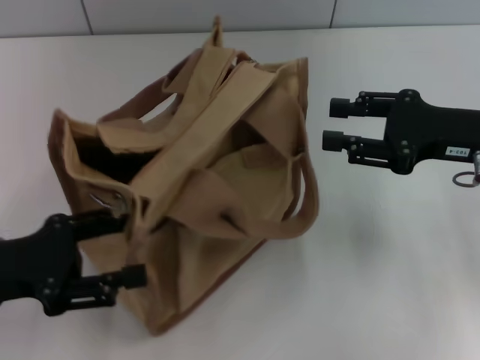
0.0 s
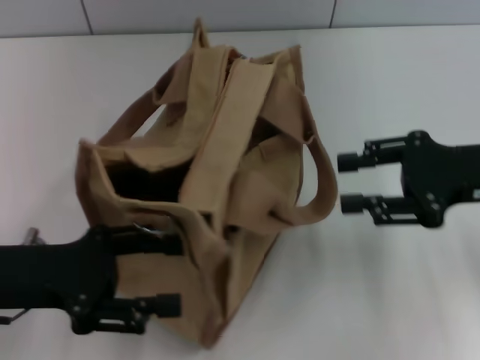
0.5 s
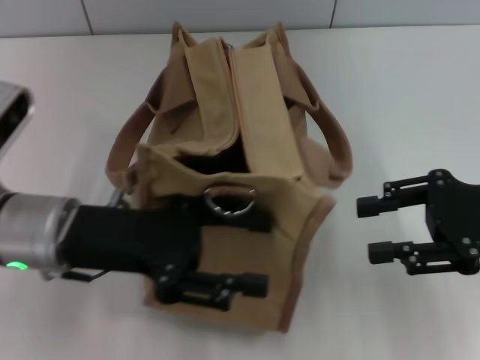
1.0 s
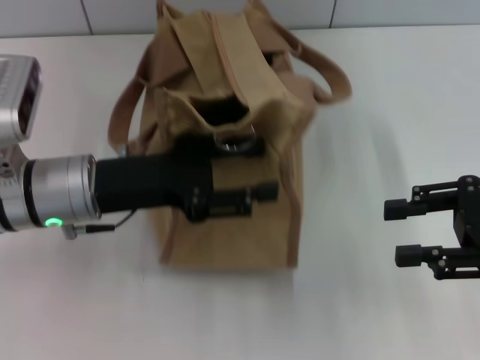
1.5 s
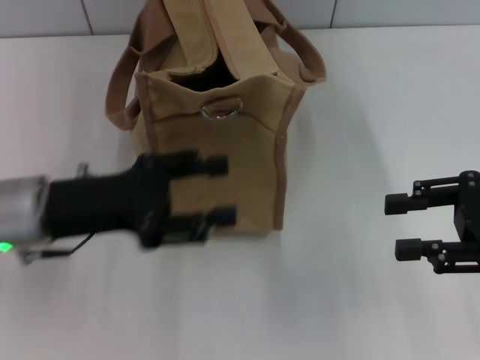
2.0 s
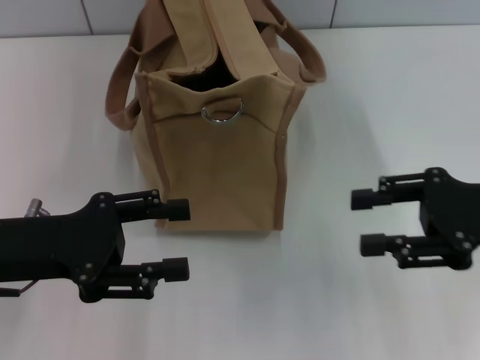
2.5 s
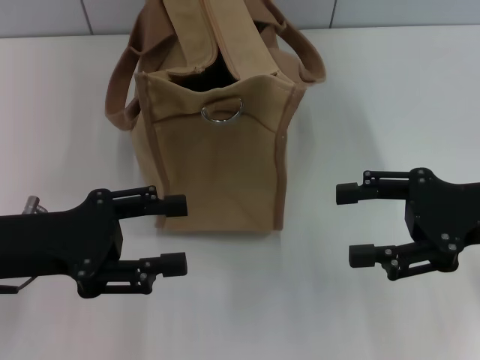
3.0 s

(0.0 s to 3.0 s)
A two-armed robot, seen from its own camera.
Step, 0.0 s - 2.0 s: Grab the bag with your left hand.
0.0 s - 1.5 s: The right gripper travels backward by roughly 5 cm, while the left gripper is displaced to the right and forward by some 15 cm.
1.5 s - 3.0 s: The left gripper travels to the left and backward by roughly 10 cm.

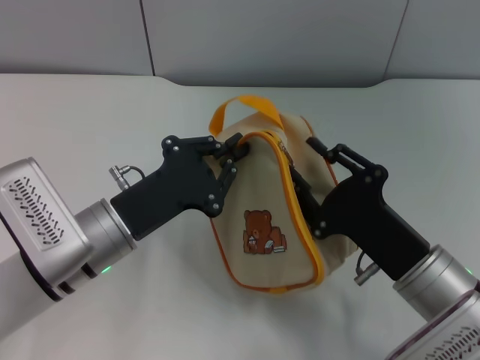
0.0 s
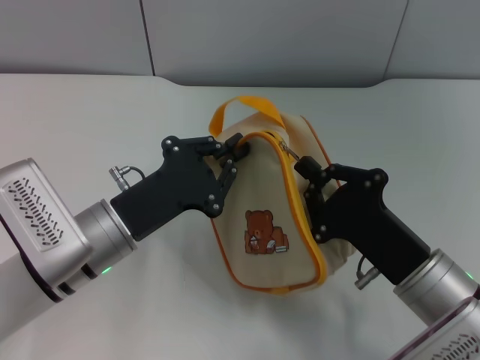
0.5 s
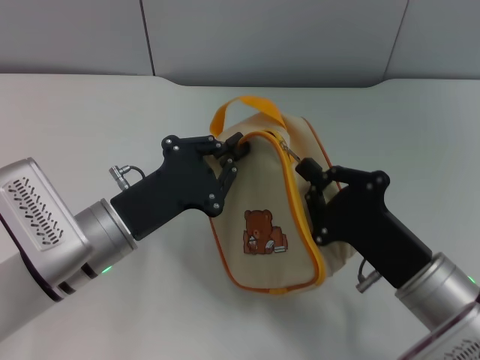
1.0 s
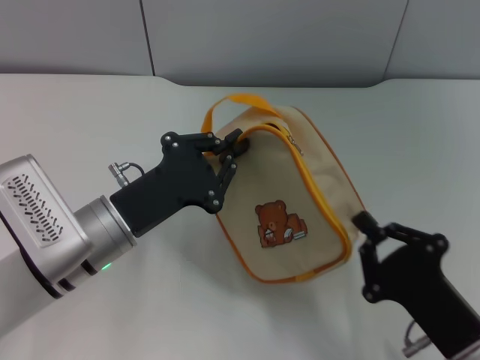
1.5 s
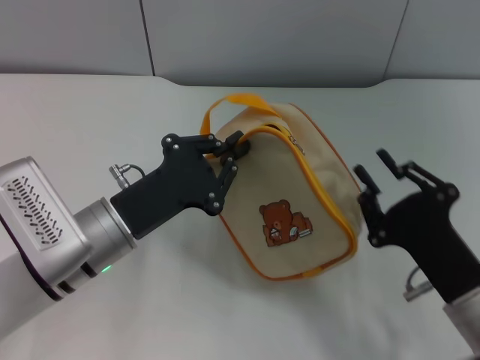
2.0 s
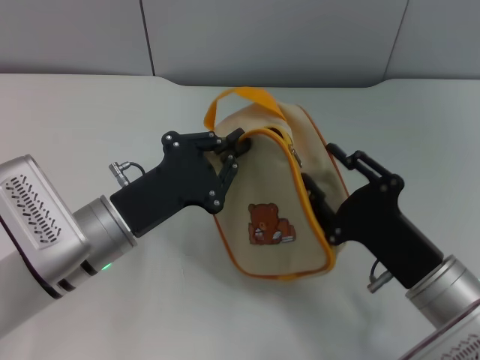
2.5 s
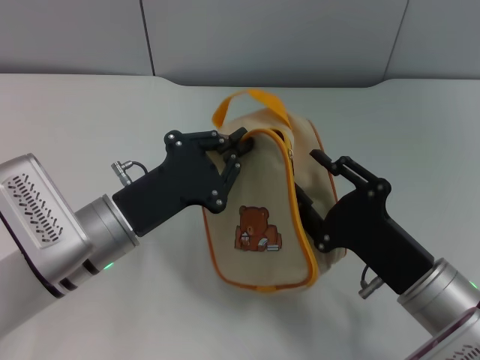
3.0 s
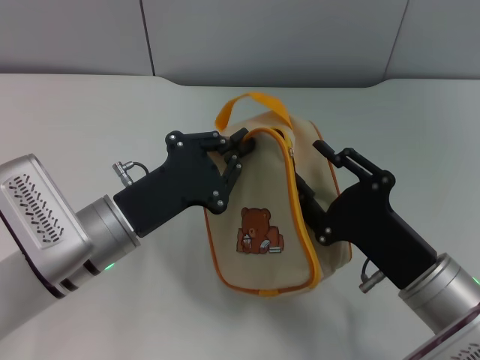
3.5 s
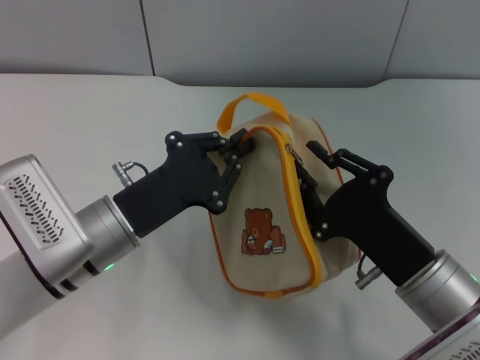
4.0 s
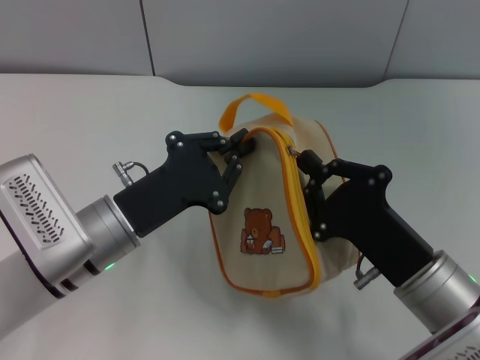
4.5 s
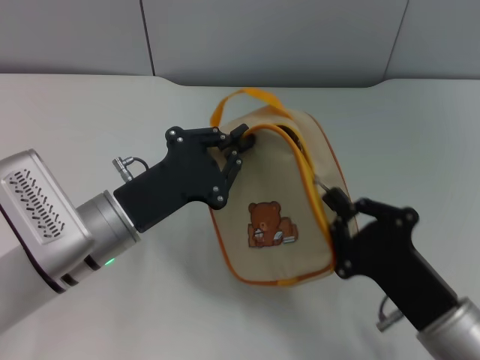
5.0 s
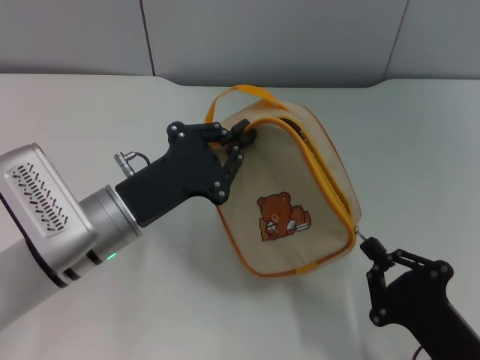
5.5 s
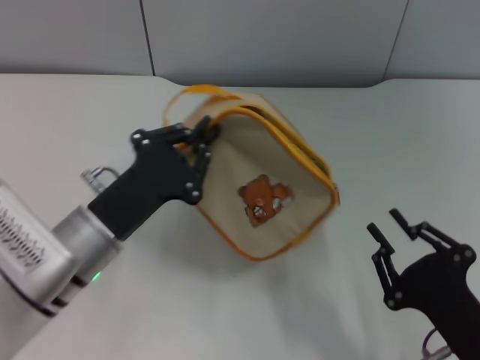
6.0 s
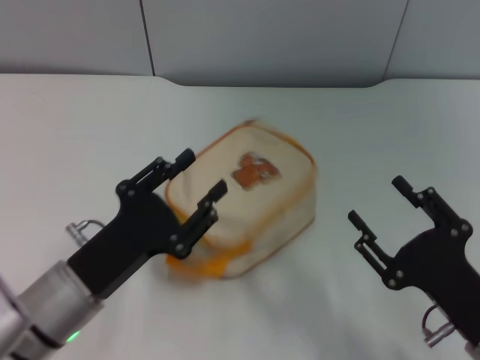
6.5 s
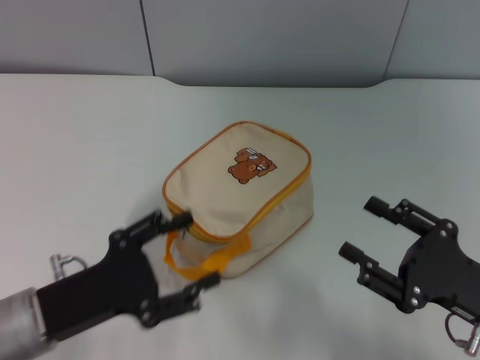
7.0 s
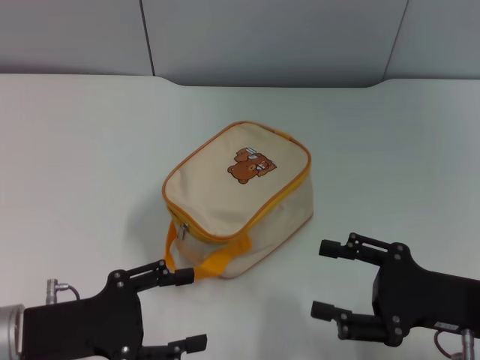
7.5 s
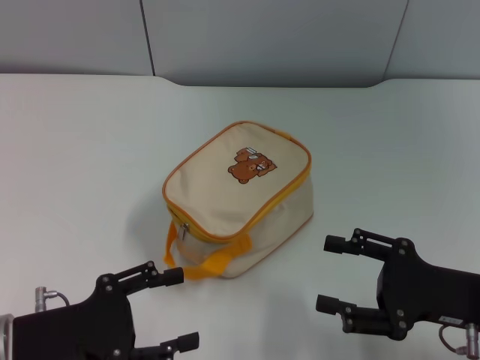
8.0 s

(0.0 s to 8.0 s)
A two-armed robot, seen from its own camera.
Step, 0.0 s - 5.5 s: Unzip the zipper of bag with right gripper.
Step, 6.0 s - 6.5 s: Place the bag on the table with left gripper.
0.0 s - 2.0 s: The right gripper closes.
2.0 s - 4.0 s: The grippers move only a little.
4.0 s - 6.0 s: The right gripper shifts roughly 5 cm backward.
6.0 s - 8.0 s: The left gripper shifts roughly 10 cm to the left and backward, and opens, while the right gripper goes some 10 cm forward, and opens up.

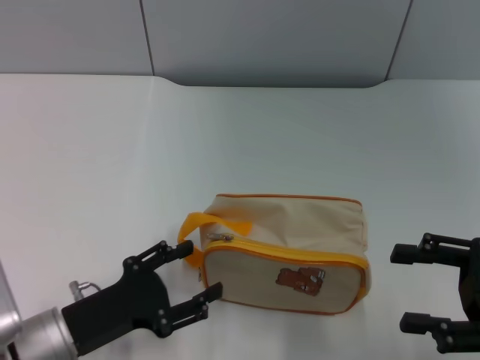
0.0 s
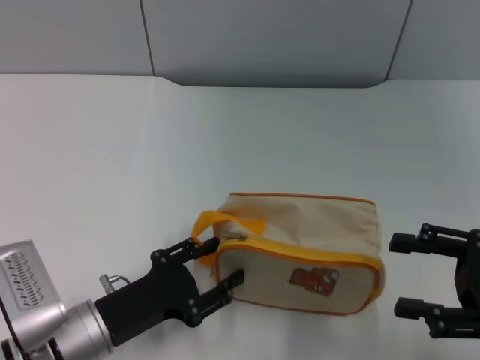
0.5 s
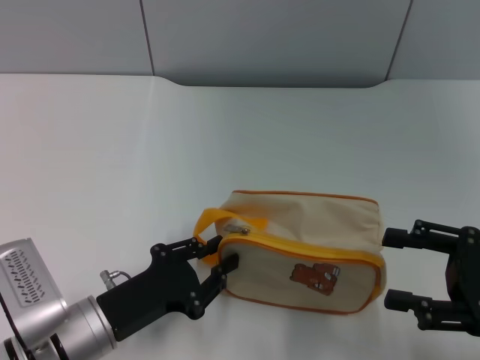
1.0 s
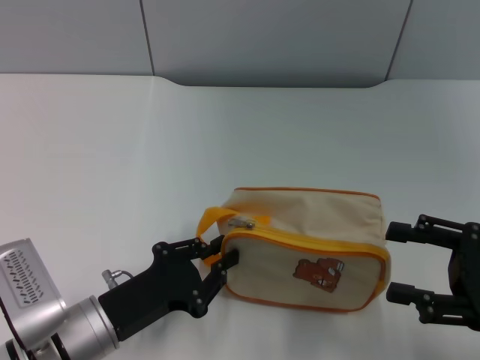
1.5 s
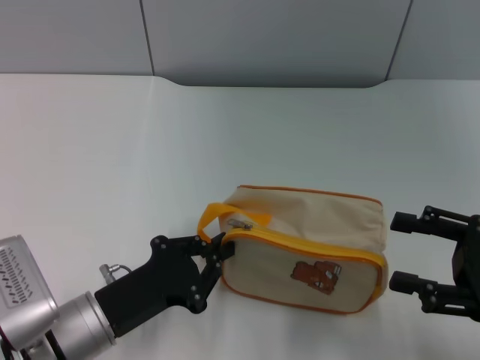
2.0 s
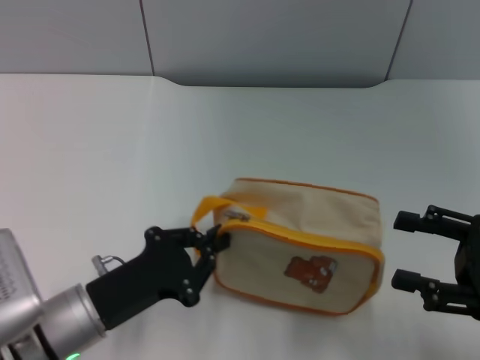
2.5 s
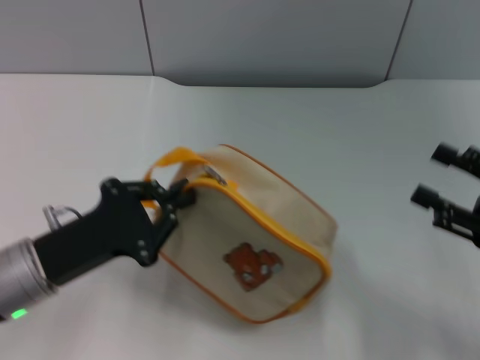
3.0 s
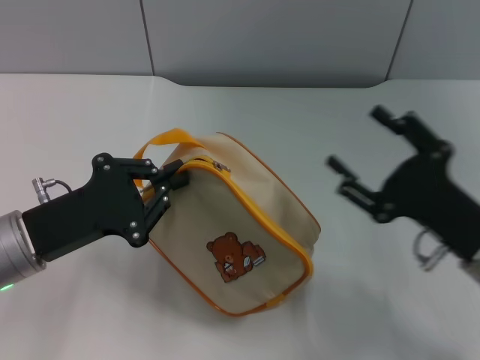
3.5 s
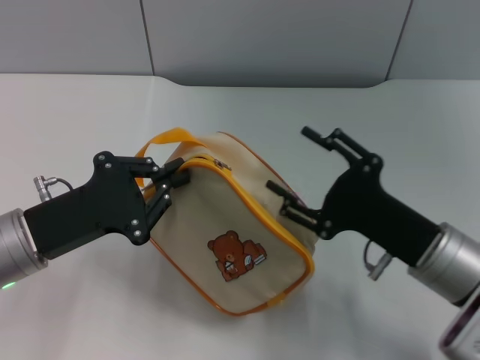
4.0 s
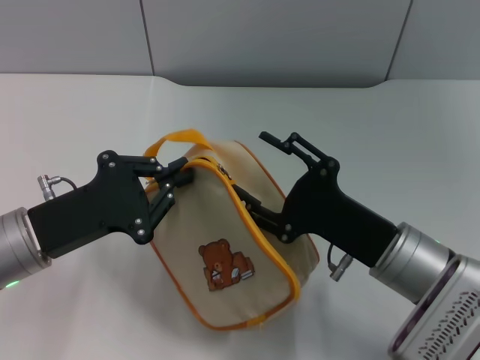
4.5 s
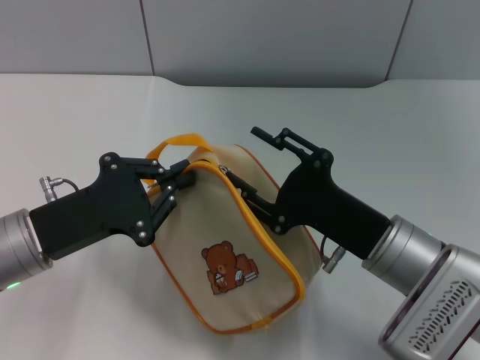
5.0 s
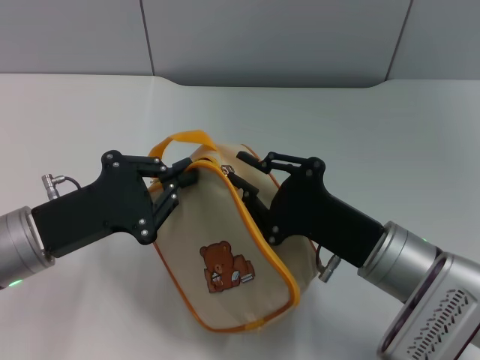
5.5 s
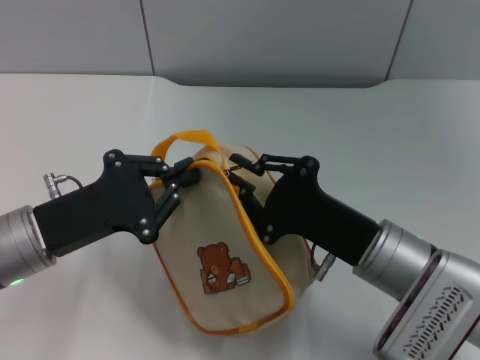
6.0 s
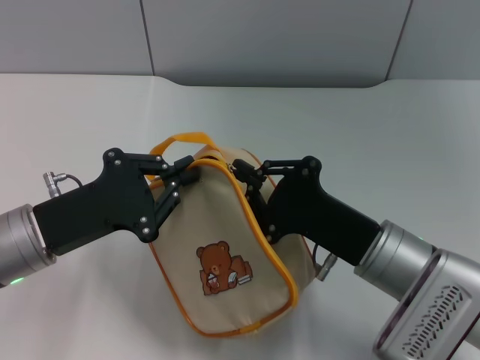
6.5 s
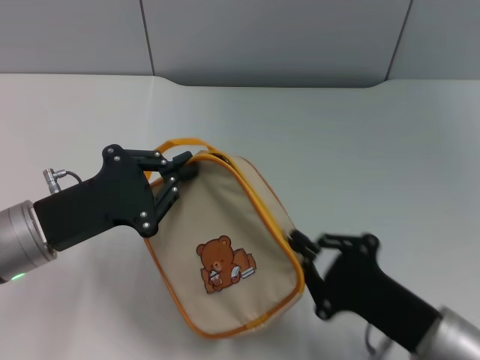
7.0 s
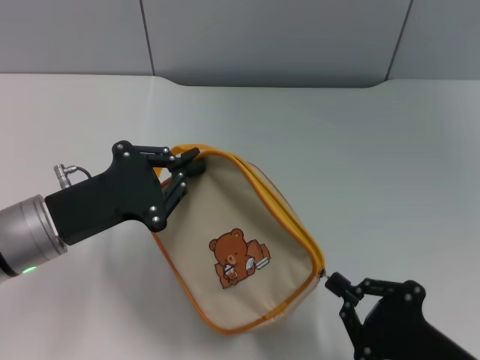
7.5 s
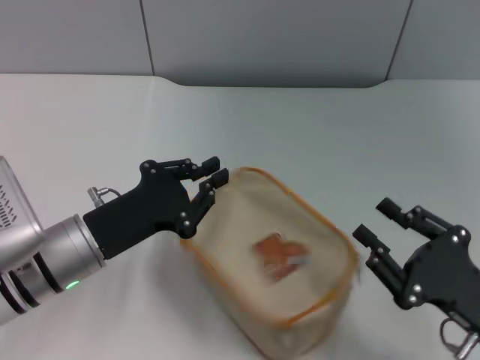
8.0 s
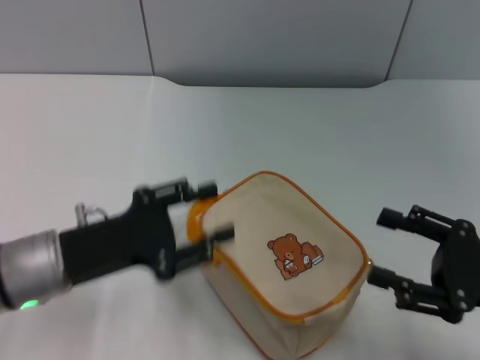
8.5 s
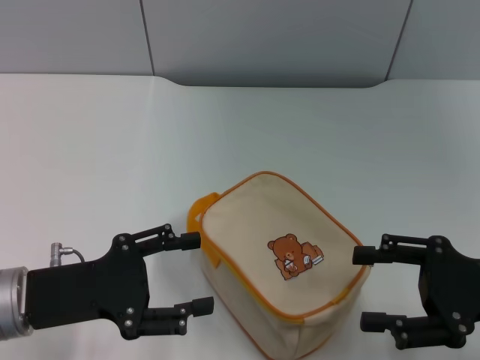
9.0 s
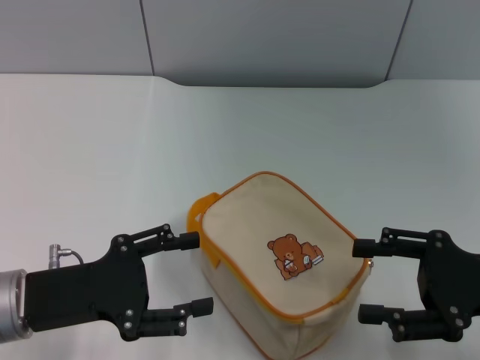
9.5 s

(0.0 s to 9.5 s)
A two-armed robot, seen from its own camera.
Step, 0.0 s - 3.0 s: Pick up the bag with left gripper.
Step, 3.5 s - 7.5 s: Unzip the zipper of bag with right gripper.
0.0 s - 2.0 s: The left gripper closes.
2.0 s - 4.0 s: The left gripper moves upward, to the left and forward, approximately 10 cm. Meanwhile the right gripper goes approximately 10 cm to the left.
4.0 s - 5.5 s: The right gripper closes its fingers.
5.5 s - 7.5 s: The right gripper is displaced backward and to the right by roughly 15 cm, and closes up.
7.5 s - 9.5 s: The left gripper moves about 5 cm, and opens. Meanwhile the right gripper moves forward, upward and to the right, about 15 cm, and opens its fingers.

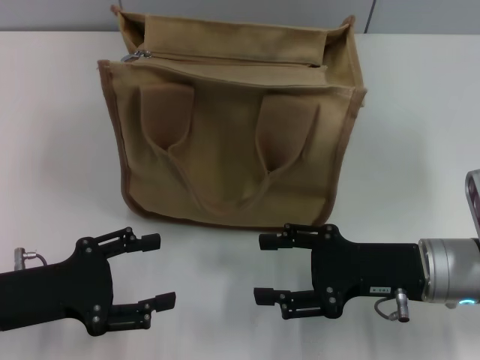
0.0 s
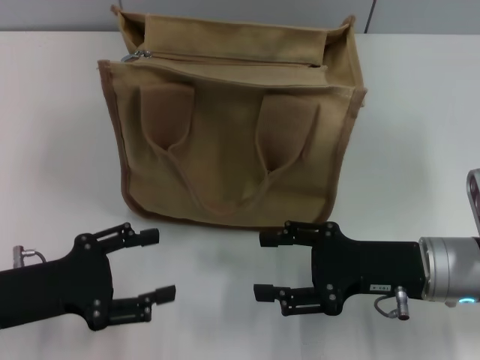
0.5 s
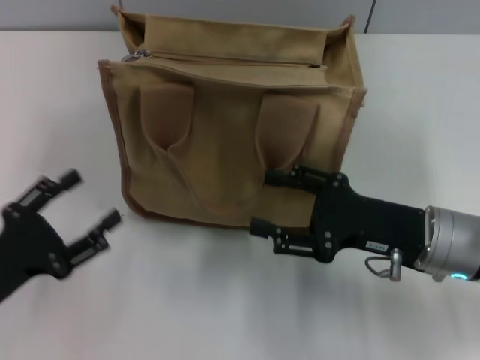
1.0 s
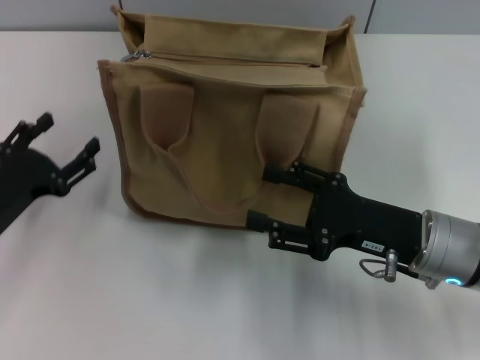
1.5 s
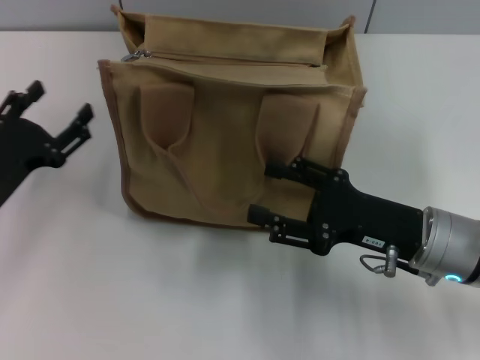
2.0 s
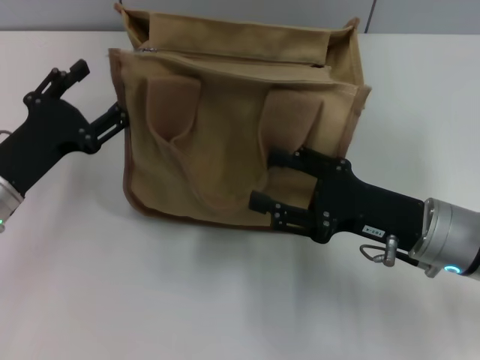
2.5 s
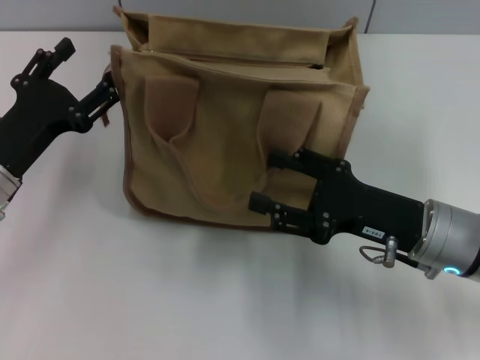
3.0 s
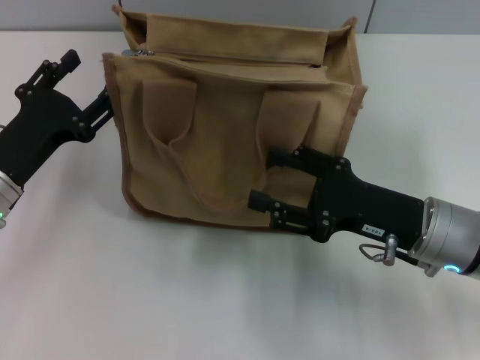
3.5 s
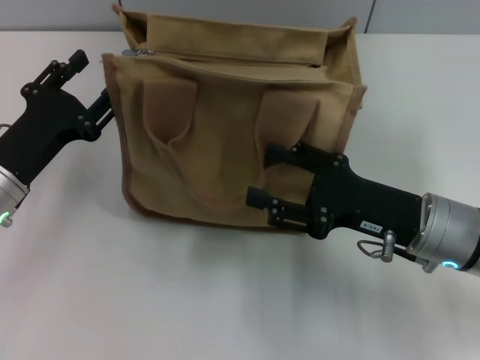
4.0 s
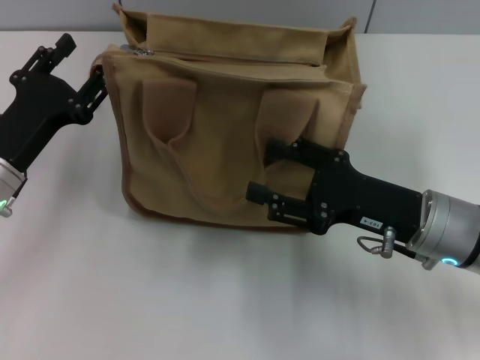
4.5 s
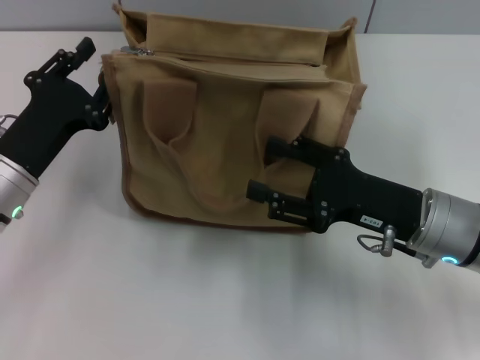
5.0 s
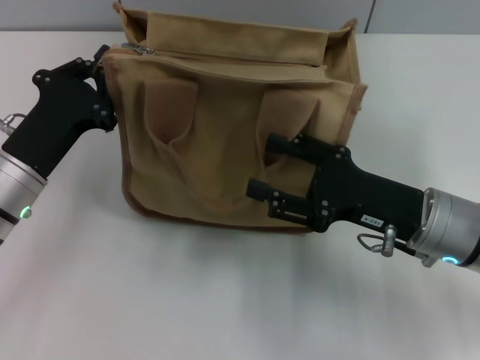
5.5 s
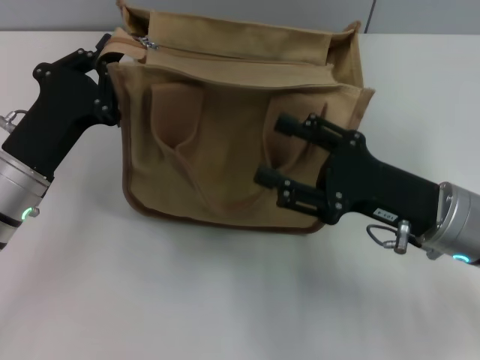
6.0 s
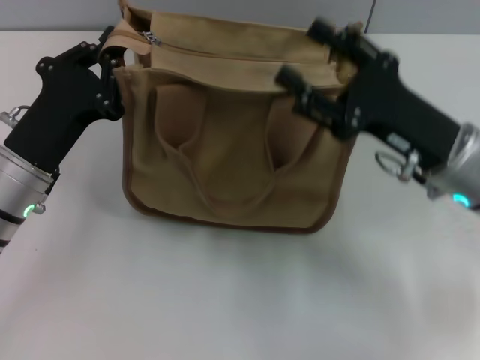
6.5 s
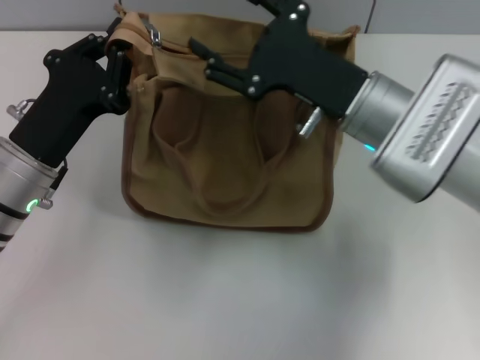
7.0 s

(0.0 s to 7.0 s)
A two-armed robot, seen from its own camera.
0.0 s - 2.0 s: The left gripper shifts about 5 cm forward.
2.0 s - 5.0 s: There are only small adjustments of the grippers.
5.0 s - 7.0 s: The left gripper closes; the right gripper heads forward, to the left and upward, covering some 10 cm.
